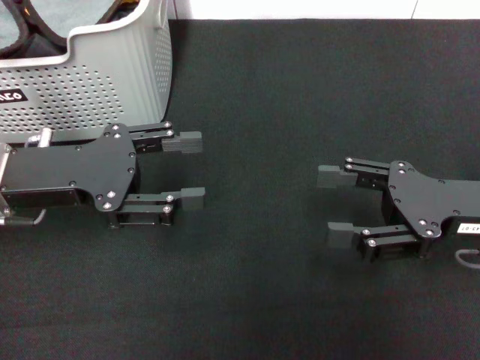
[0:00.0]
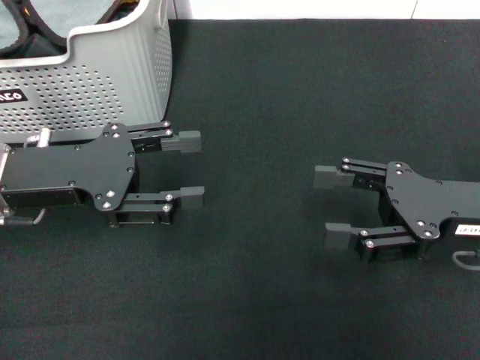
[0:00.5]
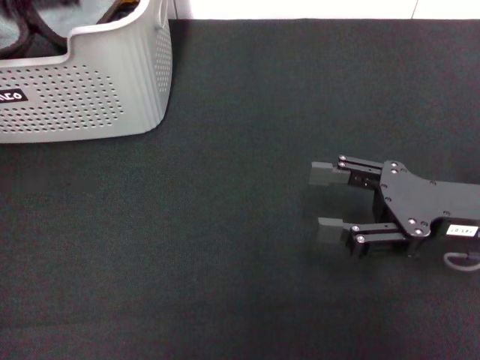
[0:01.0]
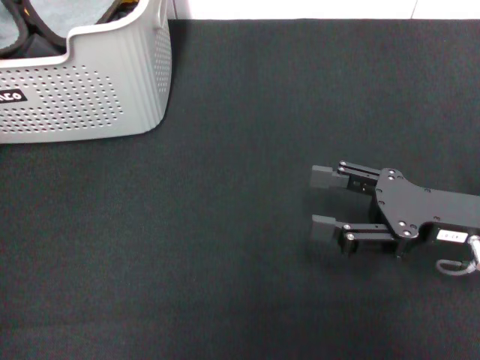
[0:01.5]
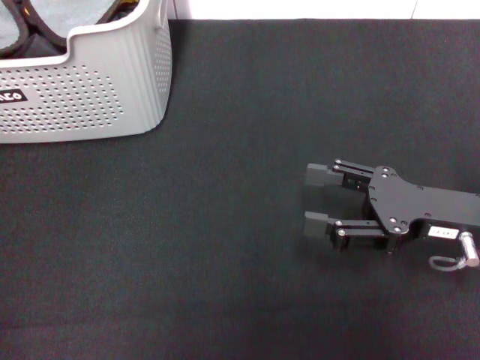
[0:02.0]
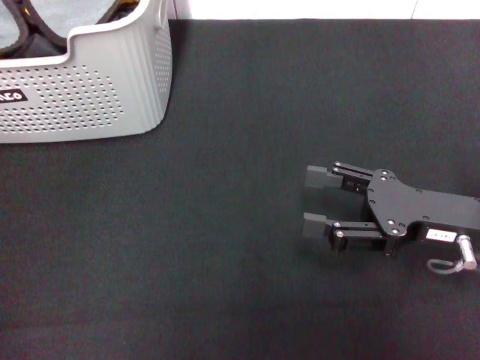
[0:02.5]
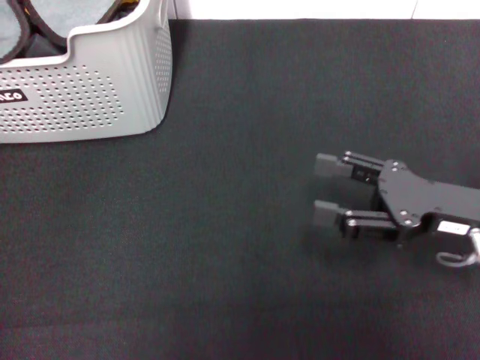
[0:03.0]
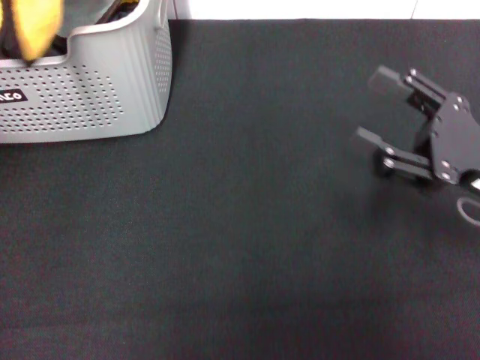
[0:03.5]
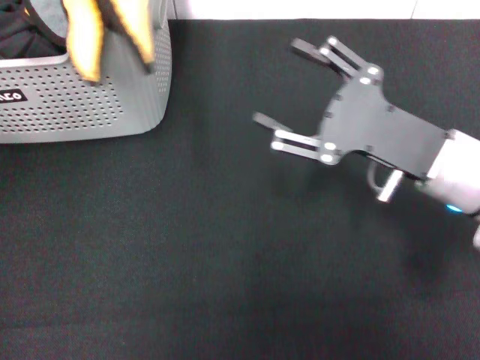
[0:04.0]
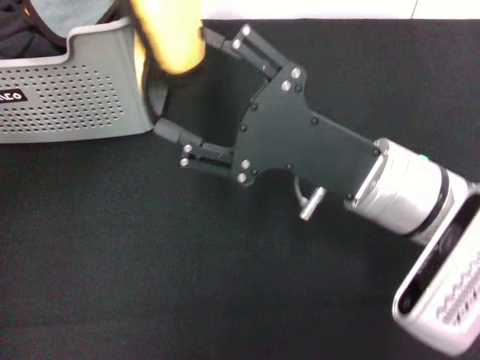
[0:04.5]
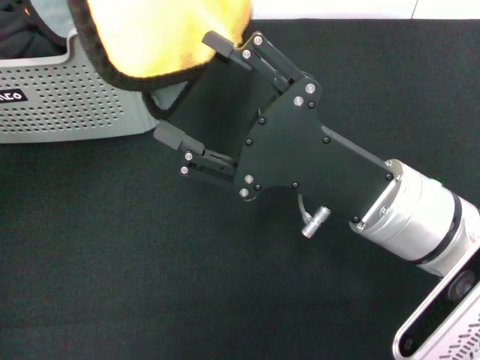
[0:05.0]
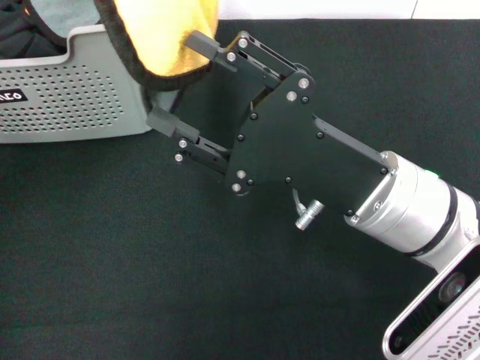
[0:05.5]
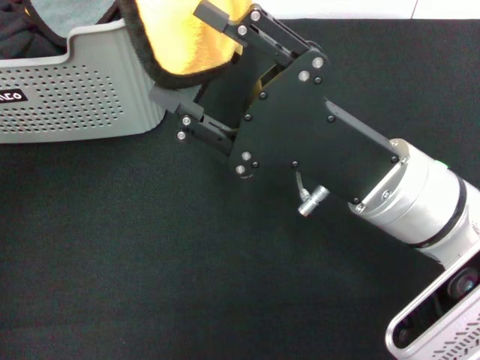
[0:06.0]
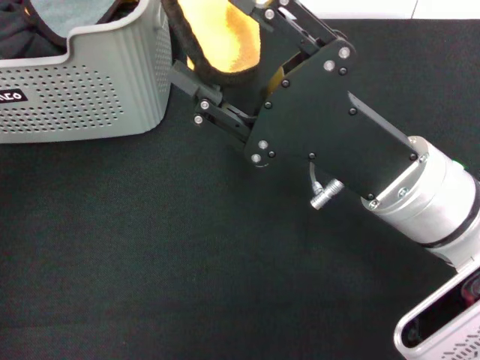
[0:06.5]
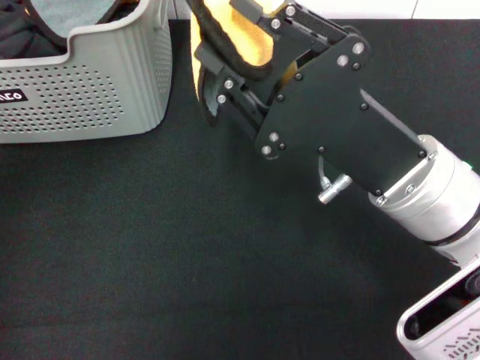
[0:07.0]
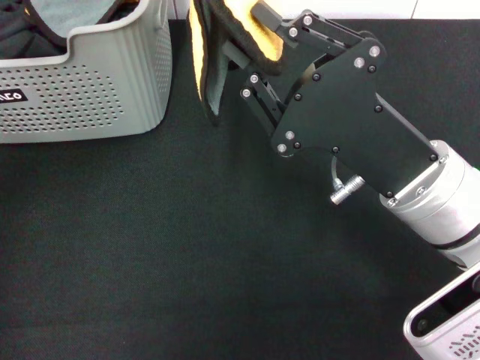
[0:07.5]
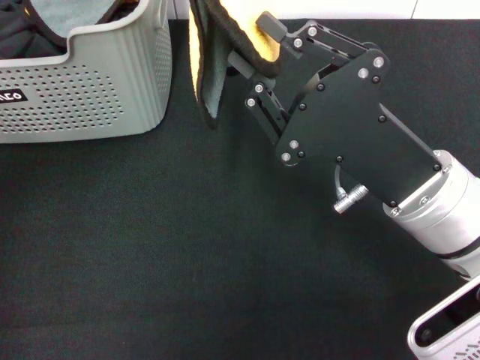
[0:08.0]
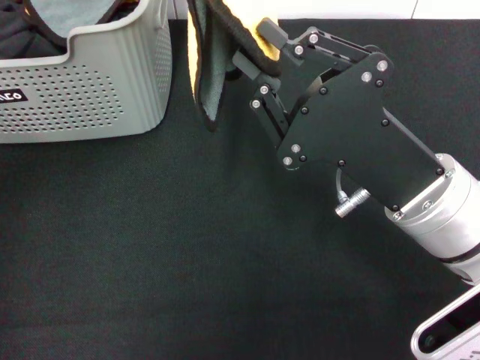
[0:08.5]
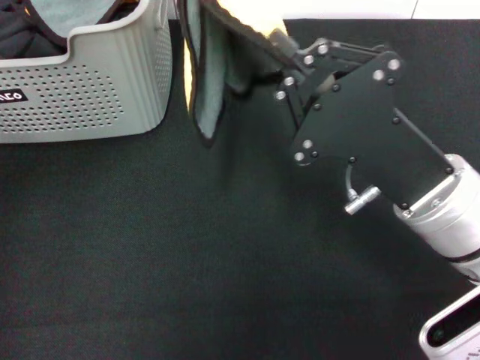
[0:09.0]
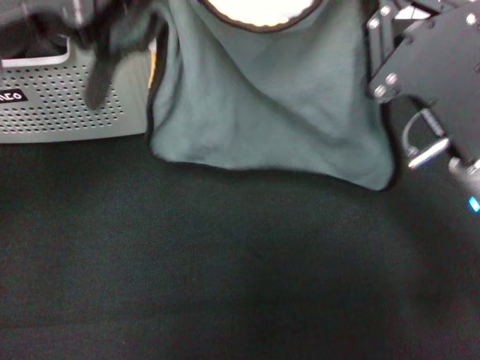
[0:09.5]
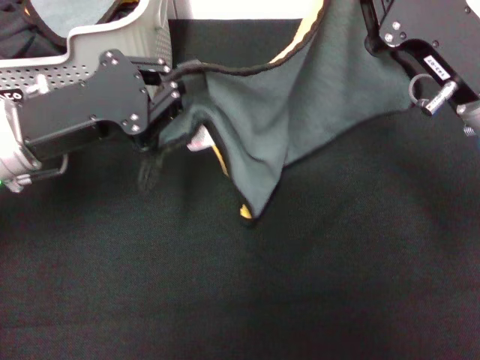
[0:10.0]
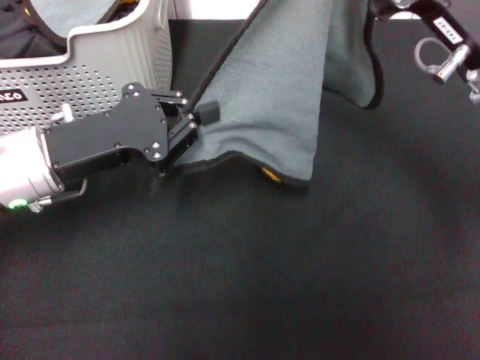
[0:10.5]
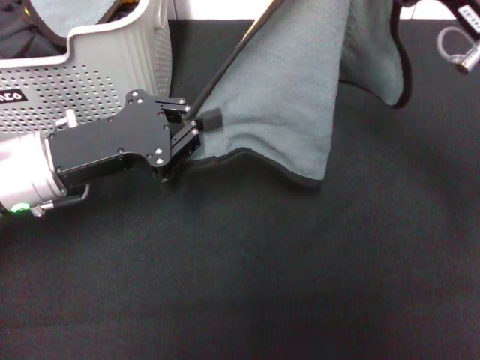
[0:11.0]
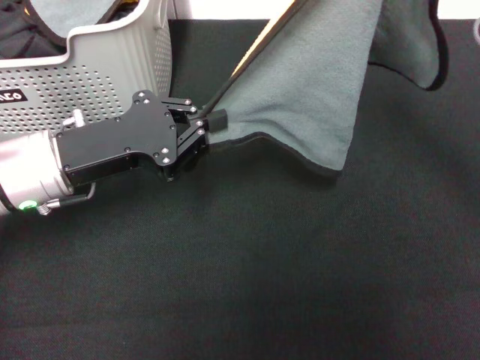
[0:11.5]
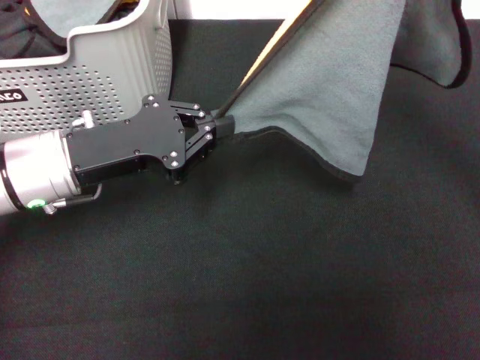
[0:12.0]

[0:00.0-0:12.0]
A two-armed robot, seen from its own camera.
Task of the whole recording: pick up the towel from the storage box and lay it flat on the black tablecloth.
Step, 0:00.0 to 0:02.5: Pick up a towel with the left gripper.
Step, 0:03.0 to 0:08.5: Spread the towel flat with the left gripper.
0:00.0 to 0:02.0: The left gripper heads upward and to the left, covering approximately 15 cm.
0:02.0 to 0:04.0: The left gripper shifts some 10 cm to the right and upward, and closes. Meanwhile the right gripper moves roughly 5 cm.
0:04.0 to 0:06.0: The right gripper heads to the left, covering roughly 5 cm.
0:06.0 to 0:08.0: The right gripper closes.
0:08.0 to 0:10.0: The left gripper is displaced downward by about 20 cm, while the right gripper is displaced forward and to the right by approximately 10 cm.
0:10.0 to 0:12.0: The right gripper moves about 5 cm.

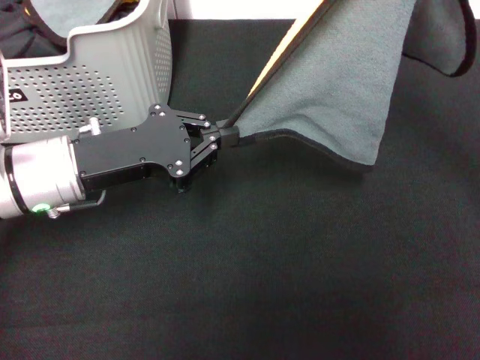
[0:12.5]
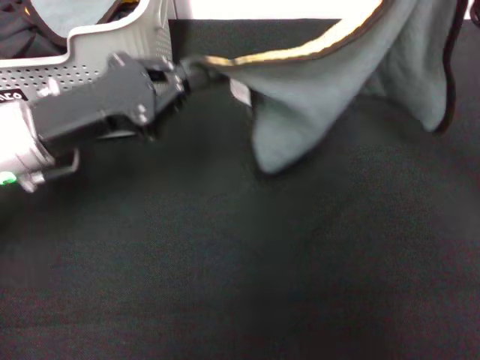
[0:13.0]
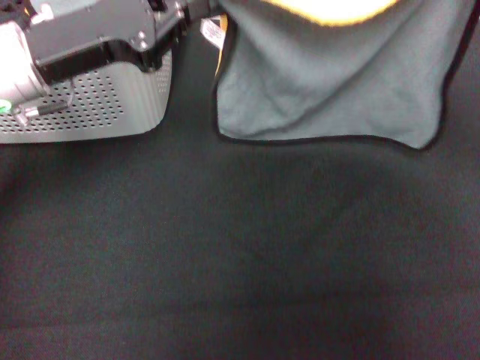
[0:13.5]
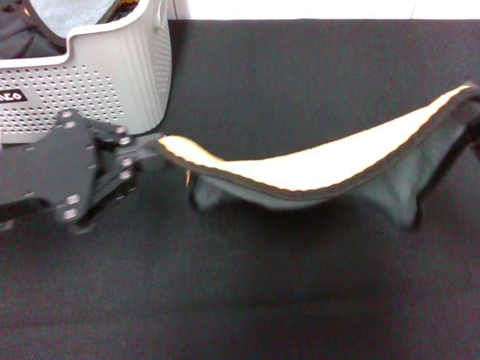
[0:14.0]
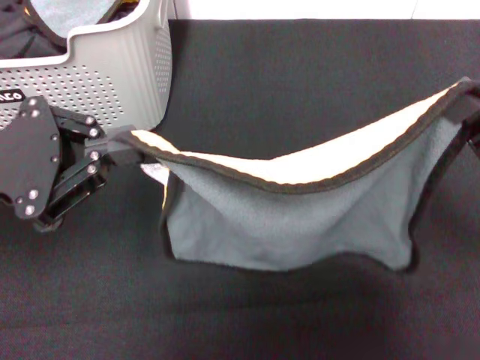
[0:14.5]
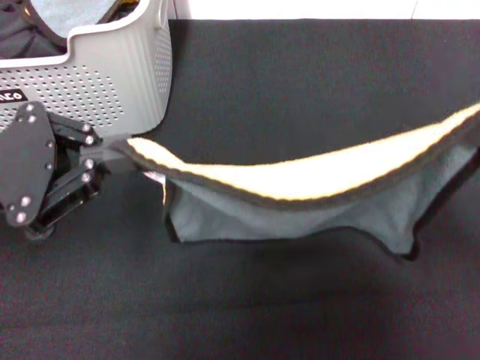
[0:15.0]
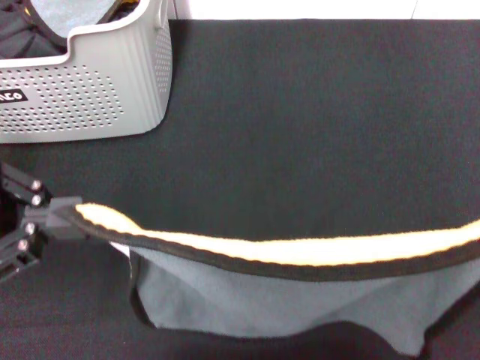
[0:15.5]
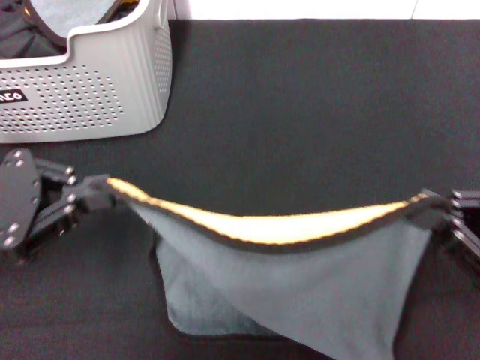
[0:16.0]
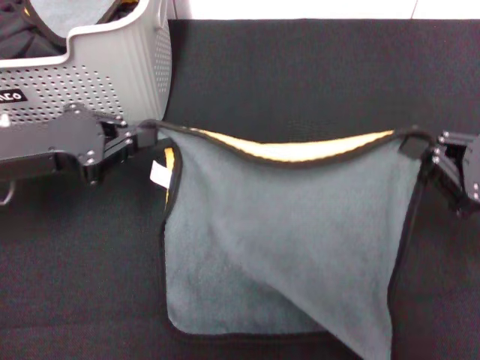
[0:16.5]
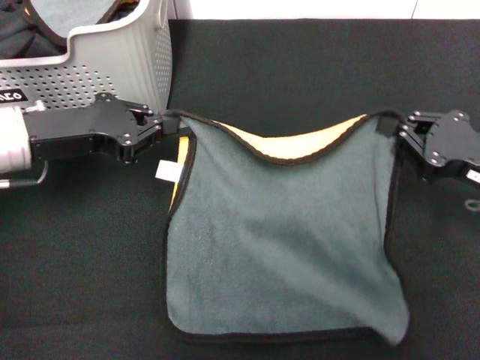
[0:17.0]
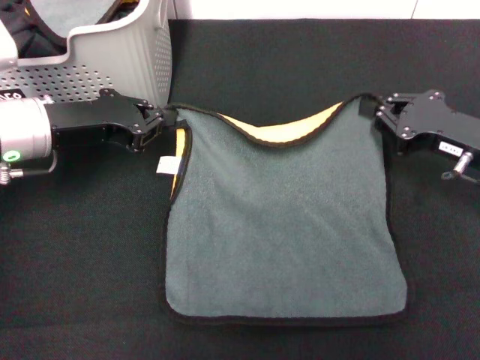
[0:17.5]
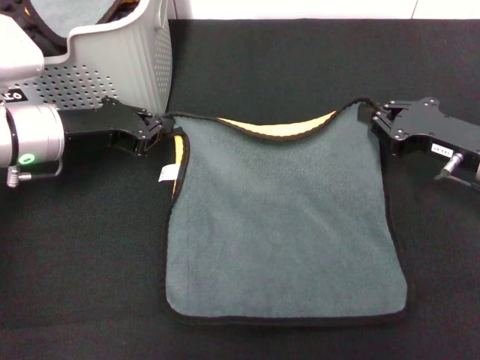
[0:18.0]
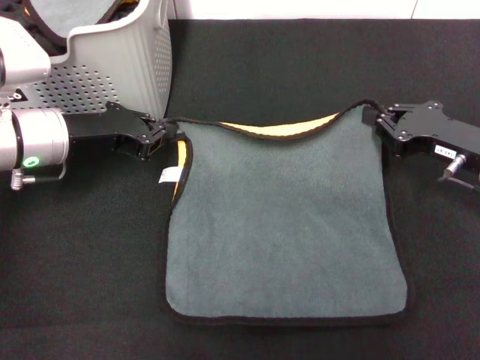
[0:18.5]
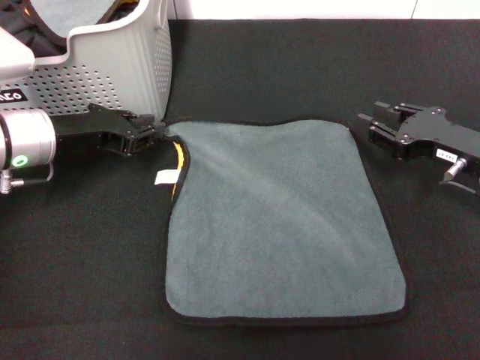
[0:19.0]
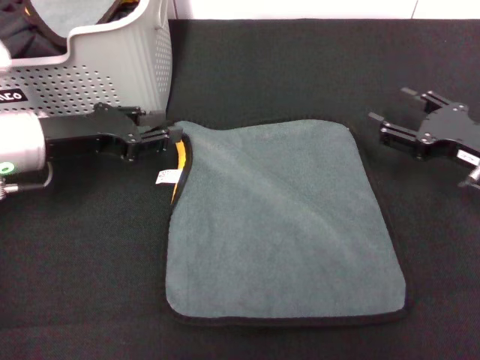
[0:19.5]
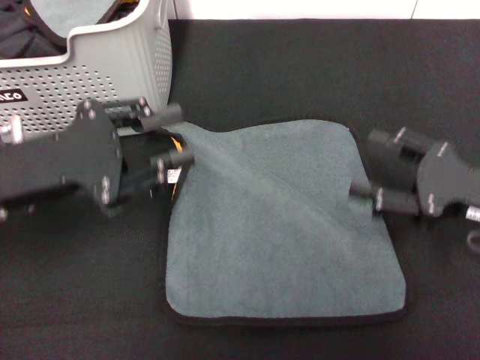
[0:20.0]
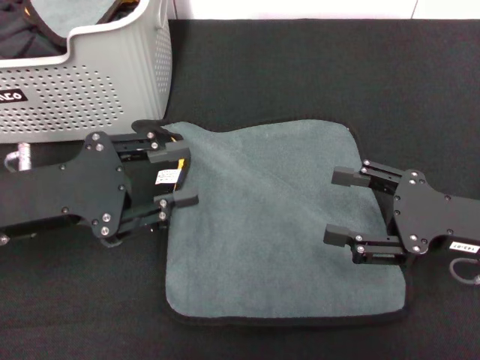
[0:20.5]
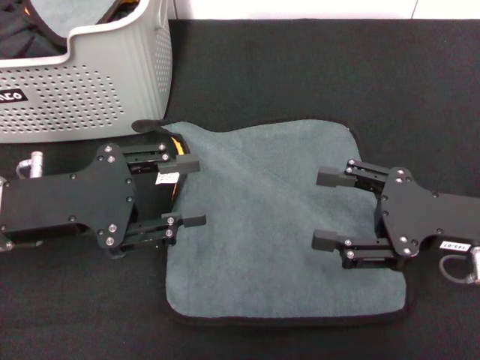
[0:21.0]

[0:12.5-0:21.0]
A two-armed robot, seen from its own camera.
Task of the whole recording: pick up the towel from the storage box and lay it flat on the black tablecloth.
Step, 0:12.5 to 0:19.0: Spread the towel flat with the right gripper.
0:12.5 to 0:14.5: The left gripper is displaced to the left, upward and backward by about 10 cm. Meanwhile the right gripper shifts roughly 10 cm backward and downward.
0:14.5 to 0:16.5: The left gripper changes place by approximately 5 cm.
0:16.5 to 0:19.0: Both grippers move forward, about 10 cm.
0:19.0 to 0:21.0: The grippers both shift backward by about 10 cm. The left gripper opens its fingers. Meanwhile the right gripper opens its fingers.
